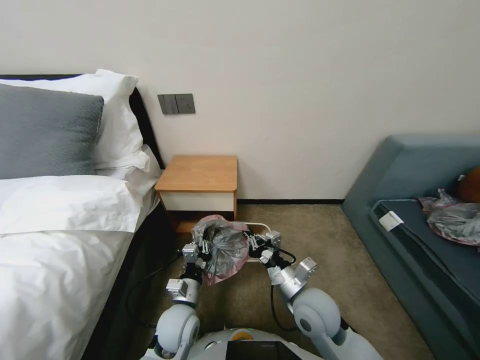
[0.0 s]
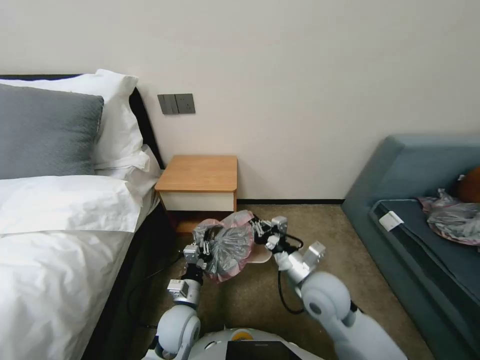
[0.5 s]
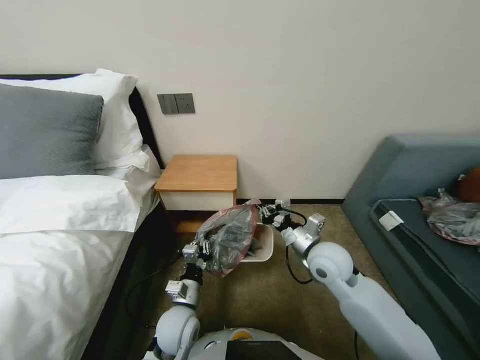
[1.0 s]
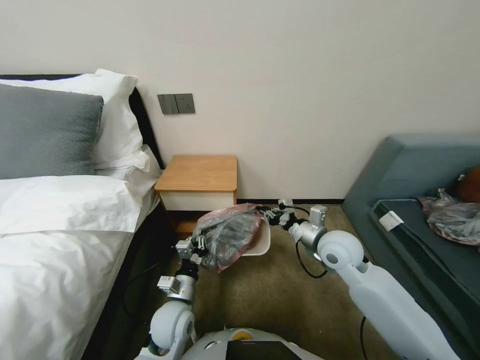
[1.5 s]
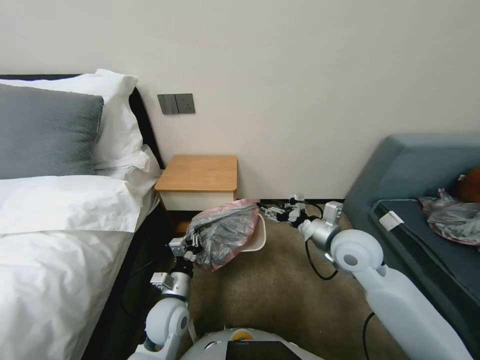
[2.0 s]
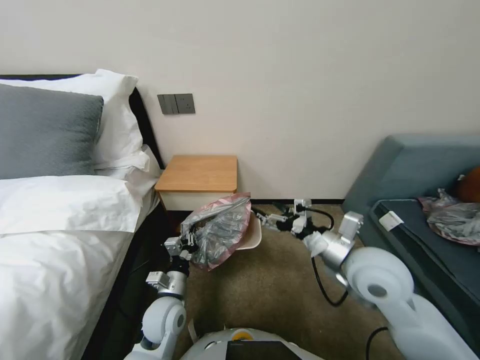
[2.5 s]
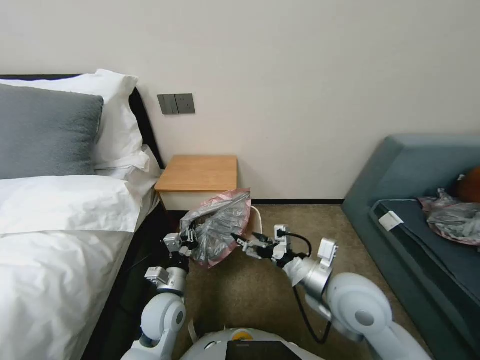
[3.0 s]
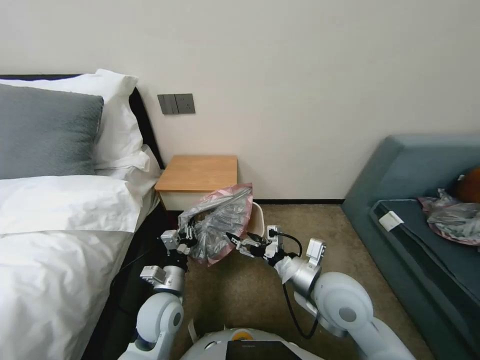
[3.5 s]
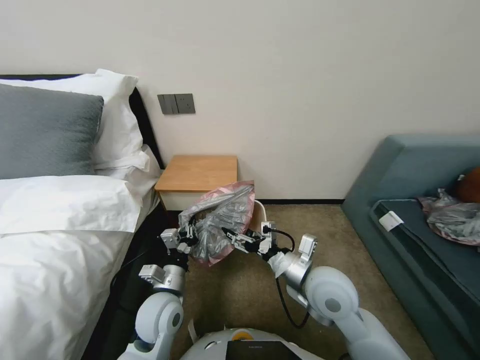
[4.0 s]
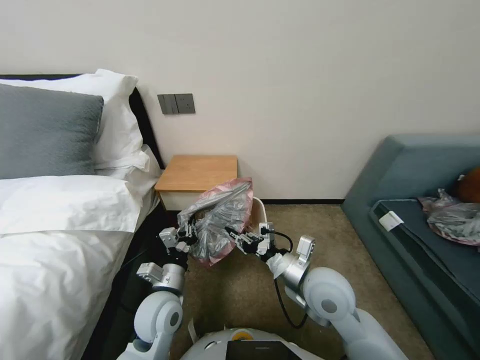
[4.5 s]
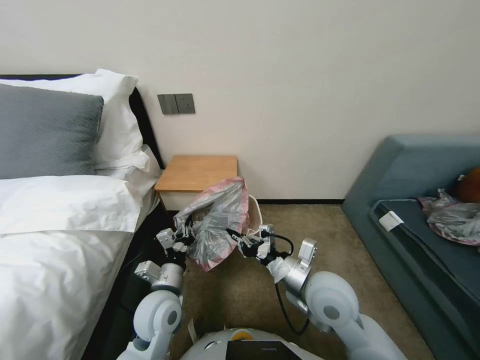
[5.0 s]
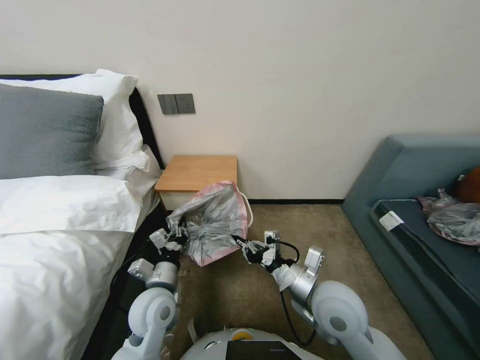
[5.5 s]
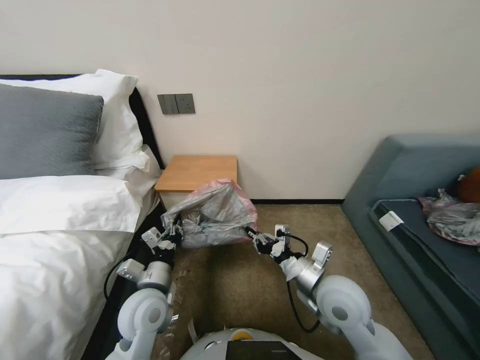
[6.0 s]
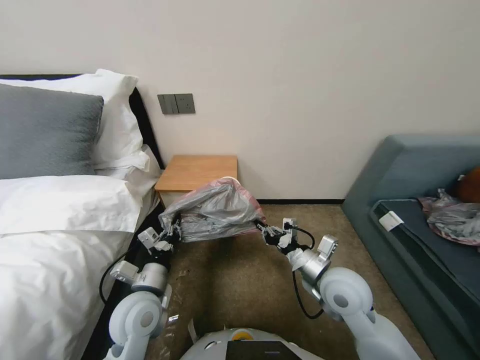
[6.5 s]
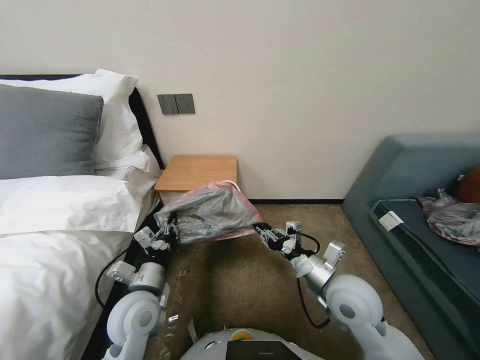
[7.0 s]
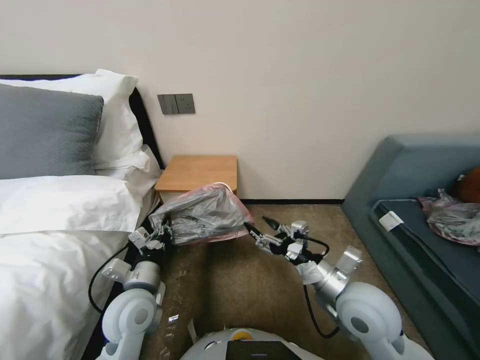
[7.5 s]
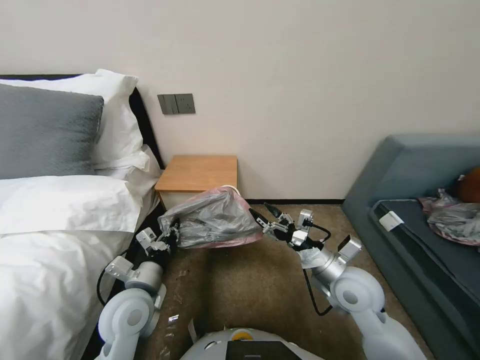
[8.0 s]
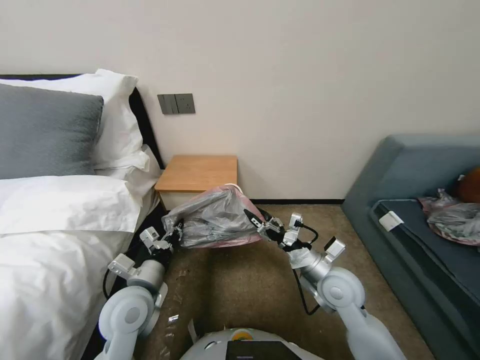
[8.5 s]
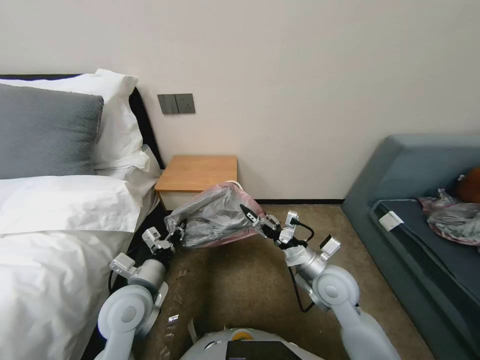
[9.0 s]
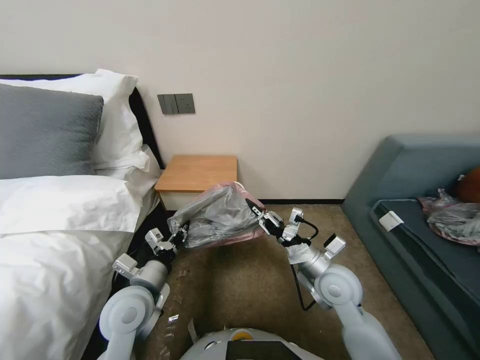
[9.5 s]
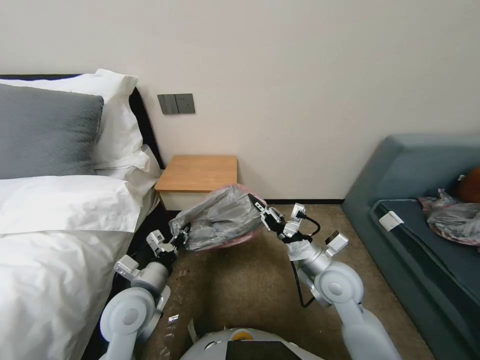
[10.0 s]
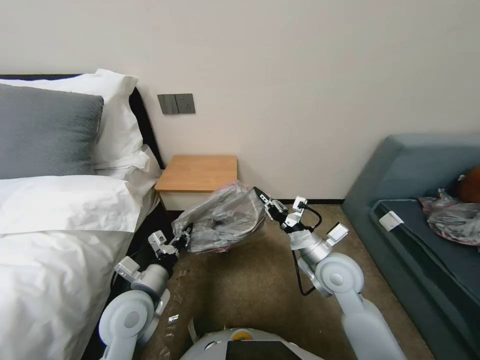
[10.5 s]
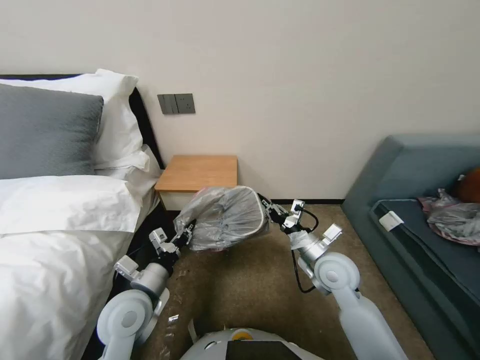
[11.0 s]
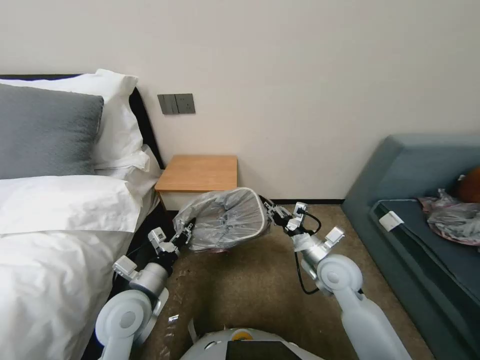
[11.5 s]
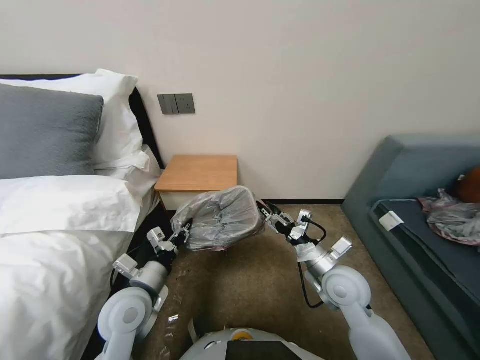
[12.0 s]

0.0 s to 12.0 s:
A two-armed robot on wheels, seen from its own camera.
Task of the whole recording: Pick up the garbage bag from the table and place it over the trash can.
0.0 to 2.0 s: The right gripper heads upward, forward and to the right, covering approximately 15 cm, and opens.
2.0 to 4.0 s: The right gripper heads backward and to the left, covering about 10 cm, and opens up.
4.0 to 6.0 s: The right gripper closes up.
6.0 to 8.0 s: The right gripper opens up.
8.0 to 10.0 s: The right gripper closes its fingers.
10.0 to 12.0 s: The right gripper opens its fingers.

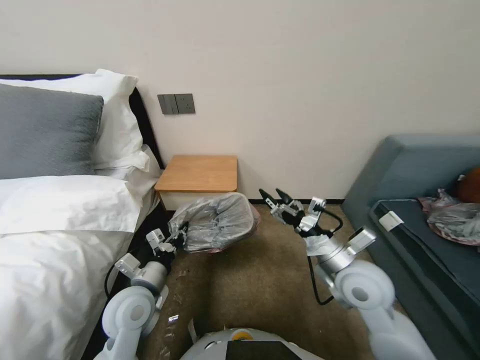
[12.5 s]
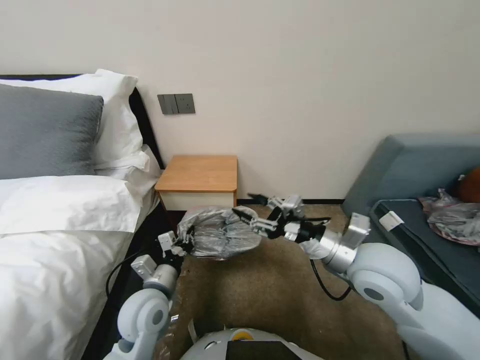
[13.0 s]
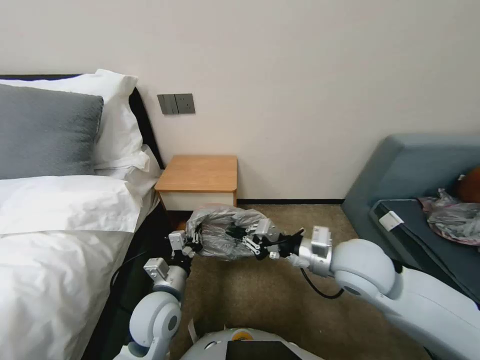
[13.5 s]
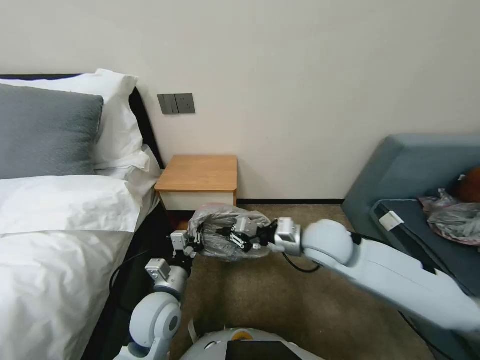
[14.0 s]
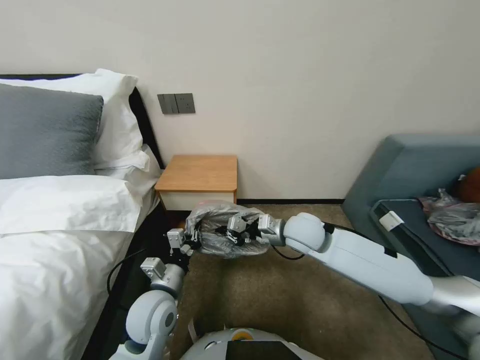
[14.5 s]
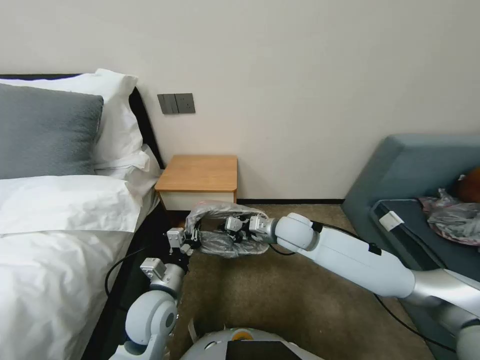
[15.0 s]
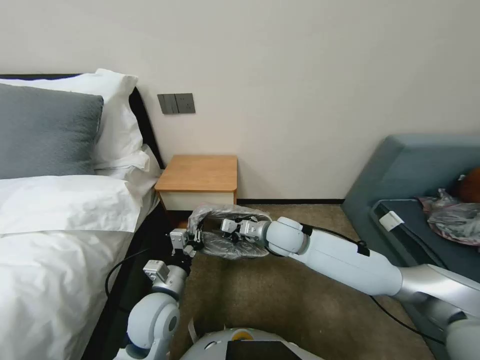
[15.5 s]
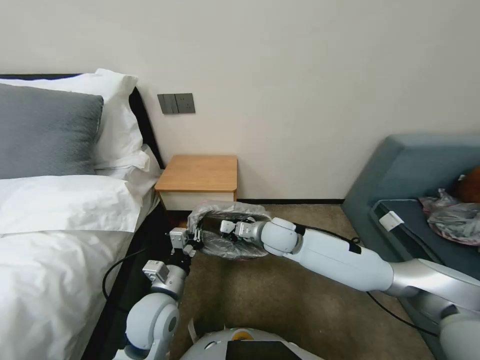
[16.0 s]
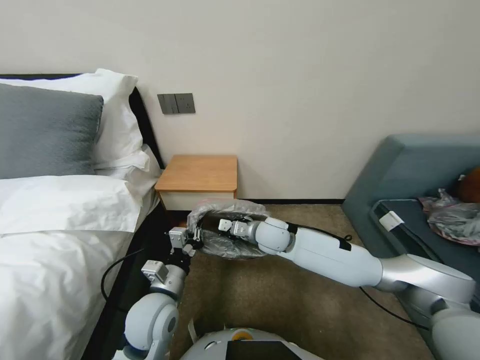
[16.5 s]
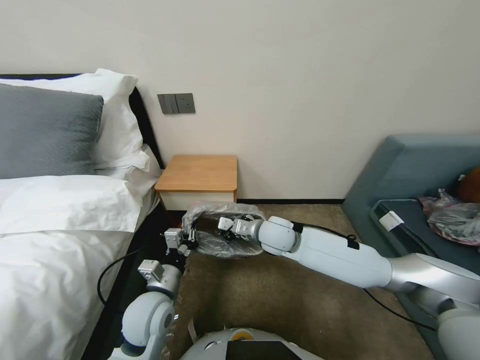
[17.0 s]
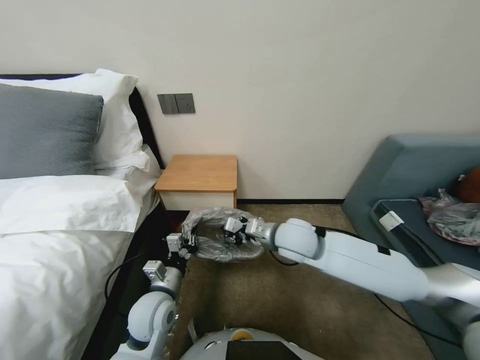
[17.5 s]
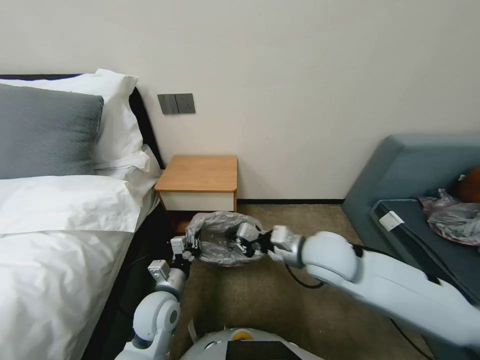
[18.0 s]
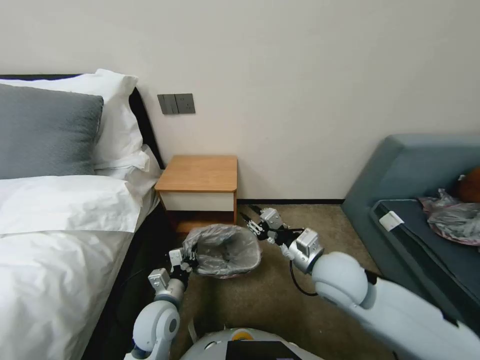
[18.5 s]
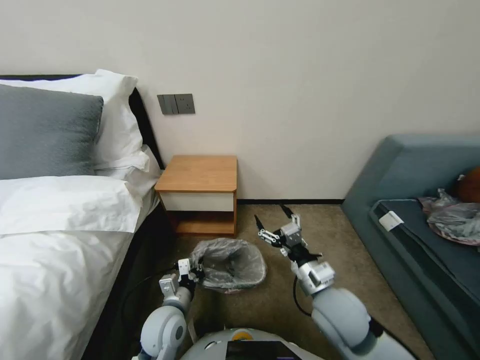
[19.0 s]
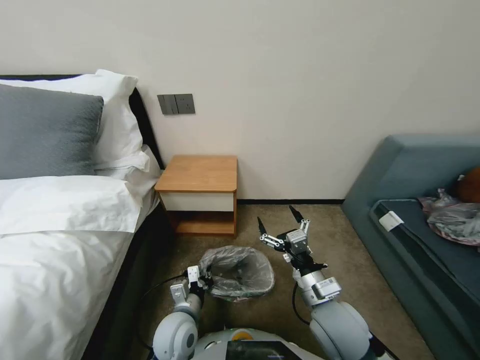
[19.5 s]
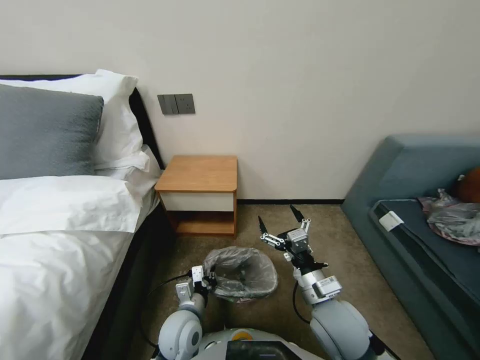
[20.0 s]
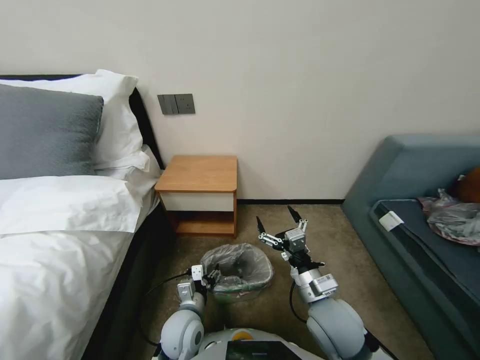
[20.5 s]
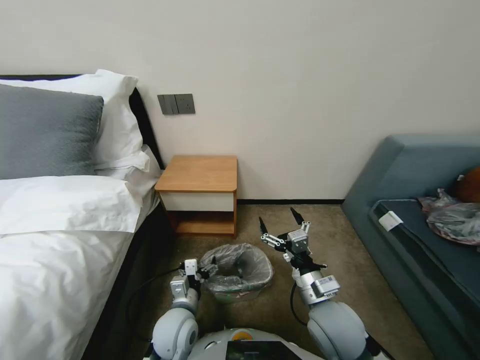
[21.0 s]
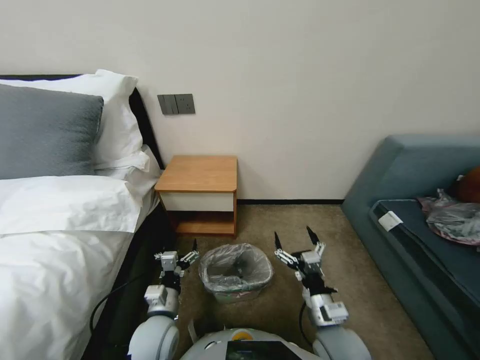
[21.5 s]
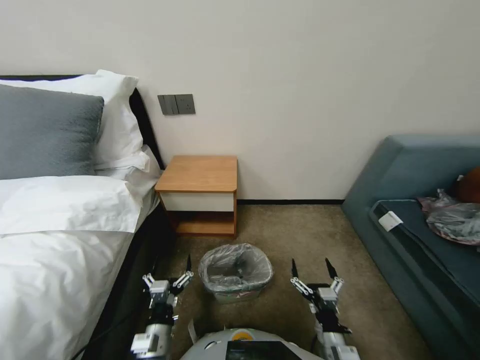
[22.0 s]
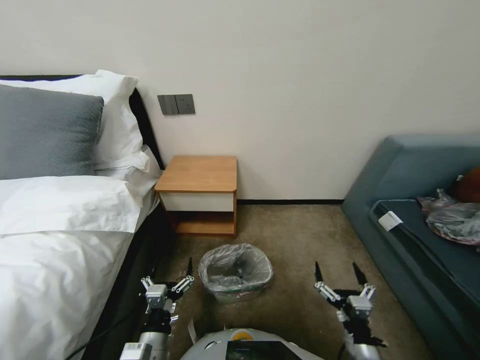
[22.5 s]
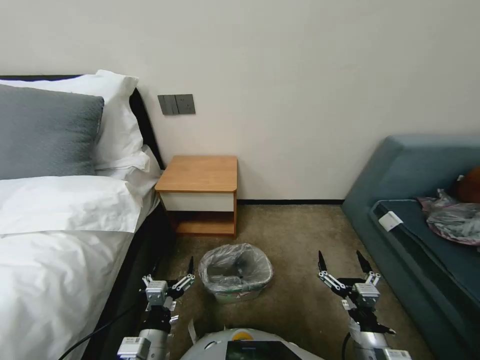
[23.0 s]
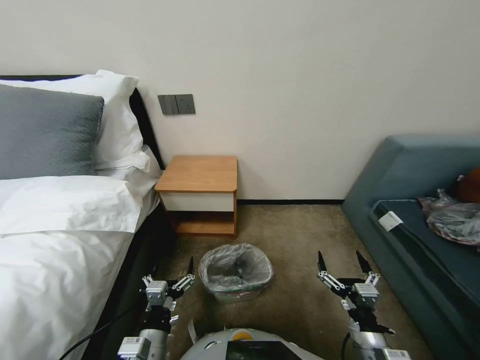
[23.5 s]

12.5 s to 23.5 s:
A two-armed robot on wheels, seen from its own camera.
Task of the whole recording: Pick up the garbage bag from the table and place it over the trash can.
12.5 to 14.5 s: The left gripper moves some 5 cm. Meanwhile the right gripper is displaced forward and to the left by about 15 cm, and closes up.
14.5 to 16.0 s: The right gripper is displaced to the left by some 5 cm.
16.0 to 18.0 s: The right gripper shifts about 10 cm backward, upward and to the right.
18.0 to 20.0 s: The right gripper is displaced backward and downward by approximately 15 cm, and opens, while the left gripper shifts approximately 5 cm to the right.
20.0 to 21.5 s: The left gripper changes place by some 5 cm, and opens up, while the right gripper ends up roughly 5 cm from where it was.
21.5 to 23.5 s: The right gripper is displaced to the right and backward by roughly 10 cm. The left gripper goes approximately 10 cm backward.

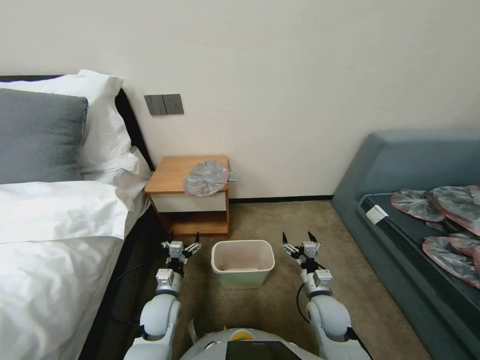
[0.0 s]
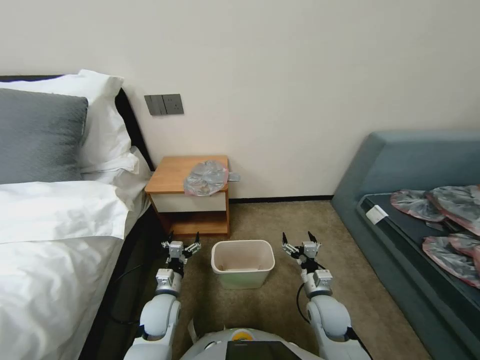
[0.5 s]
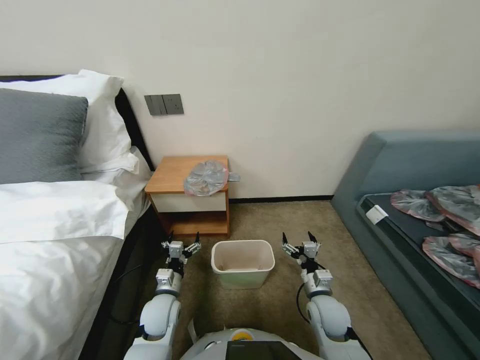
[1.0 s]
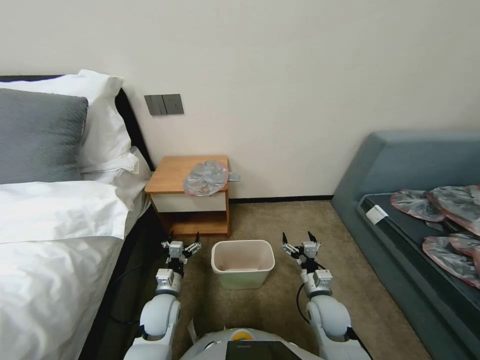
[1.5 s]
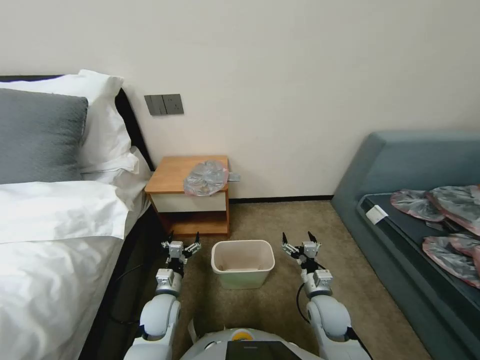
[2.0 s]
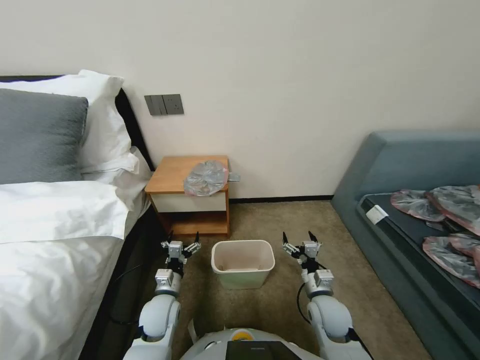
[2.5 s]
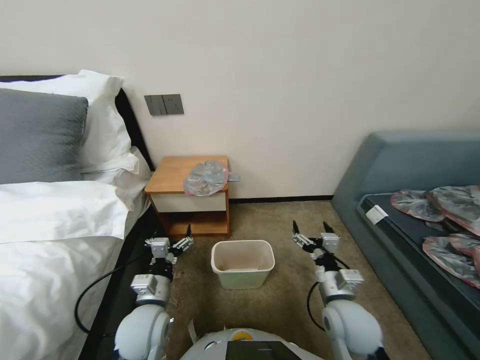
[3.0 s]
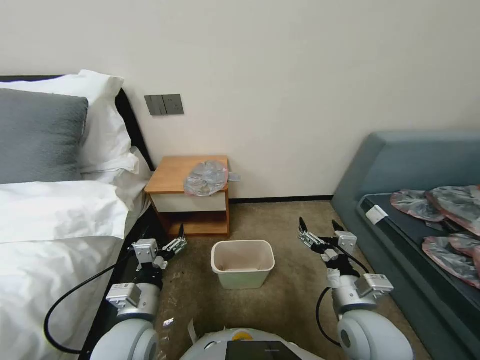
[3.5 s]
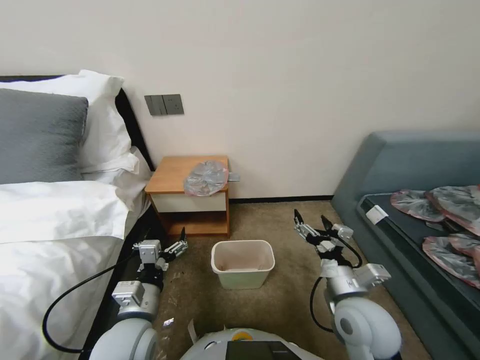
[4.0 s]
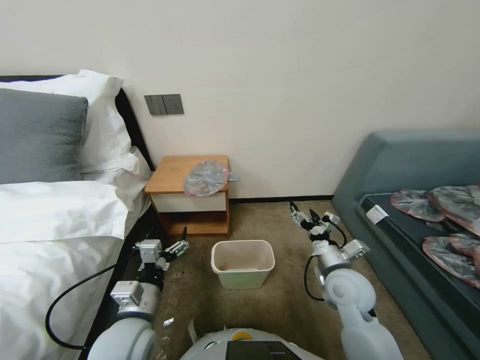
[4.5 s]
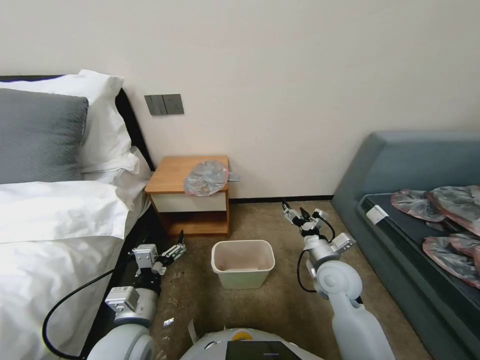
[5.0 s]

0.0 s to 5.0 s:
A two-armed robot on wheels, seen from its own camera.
Task of the whole recording: Pick up the garbage bag from the table and place it over the trash can.
2.5 to 5.0 s: The right gripper goes about 10 cm upward, while the left gripper is displaced upward and backward by some 15 cm.
